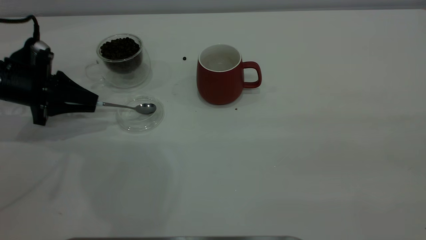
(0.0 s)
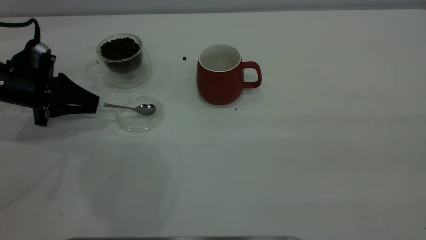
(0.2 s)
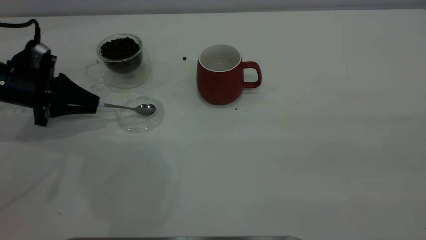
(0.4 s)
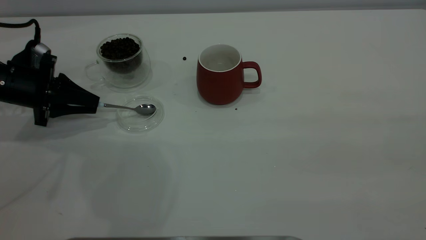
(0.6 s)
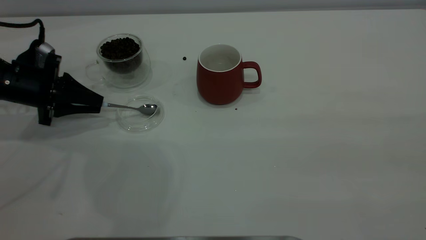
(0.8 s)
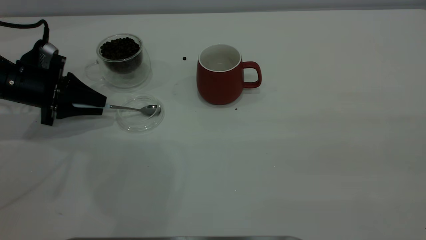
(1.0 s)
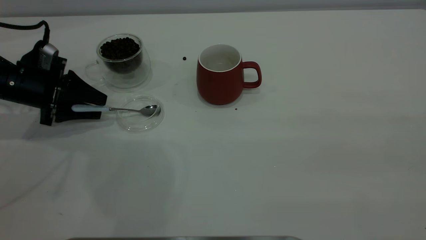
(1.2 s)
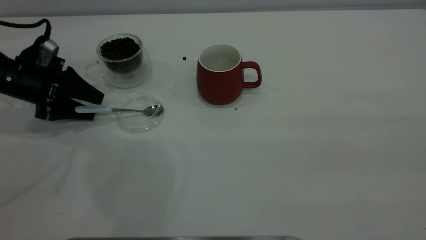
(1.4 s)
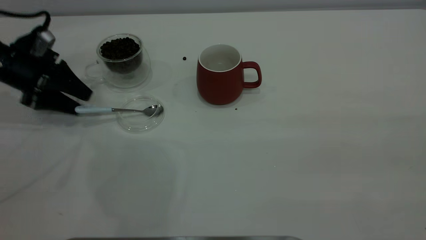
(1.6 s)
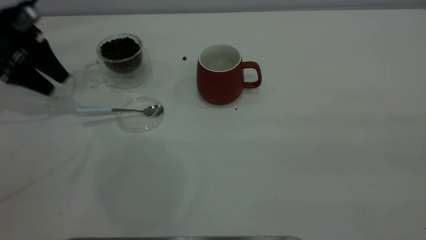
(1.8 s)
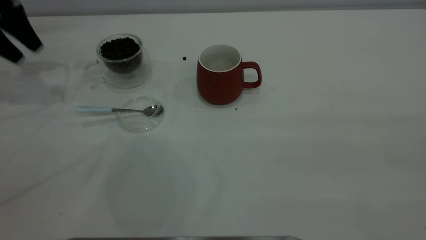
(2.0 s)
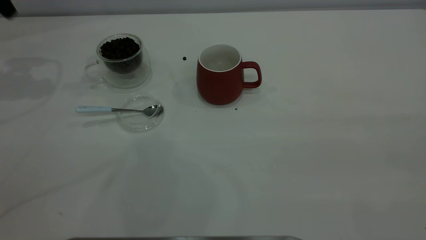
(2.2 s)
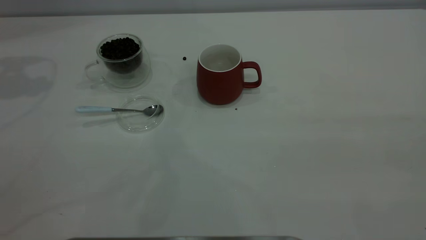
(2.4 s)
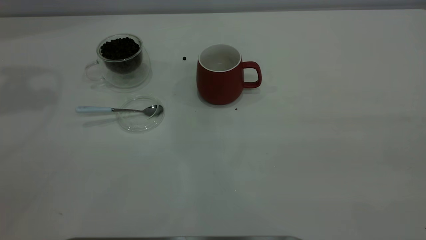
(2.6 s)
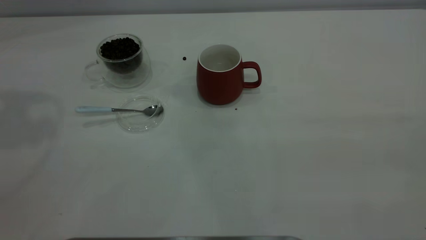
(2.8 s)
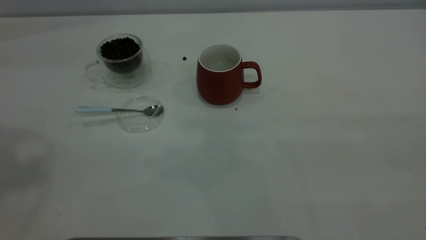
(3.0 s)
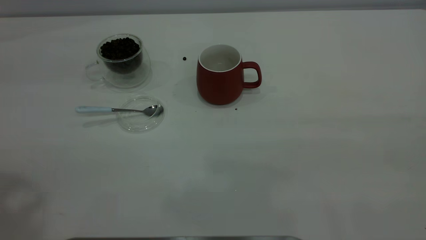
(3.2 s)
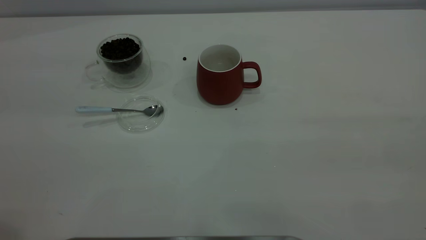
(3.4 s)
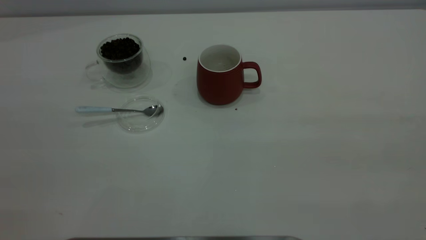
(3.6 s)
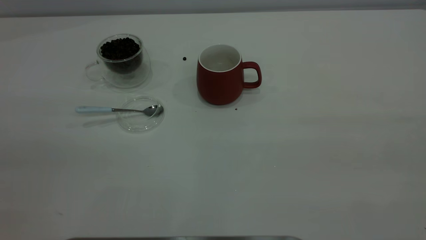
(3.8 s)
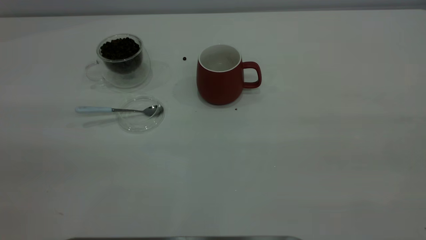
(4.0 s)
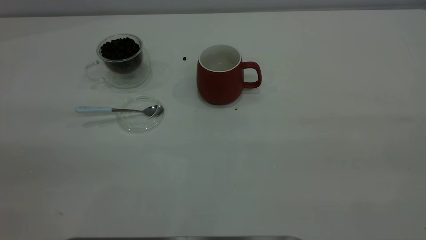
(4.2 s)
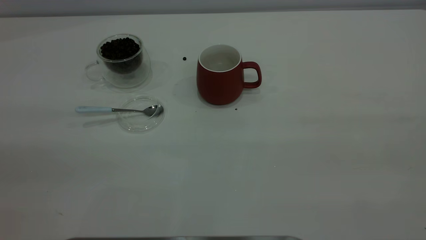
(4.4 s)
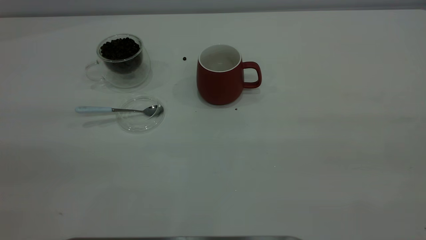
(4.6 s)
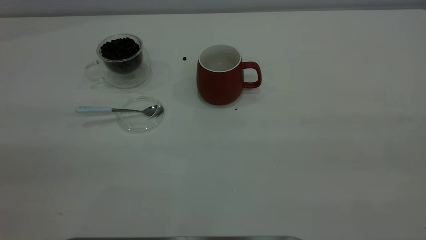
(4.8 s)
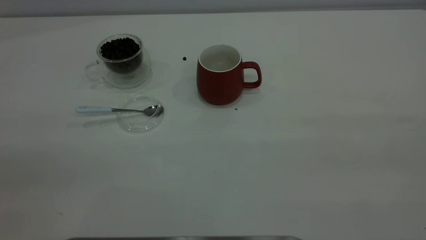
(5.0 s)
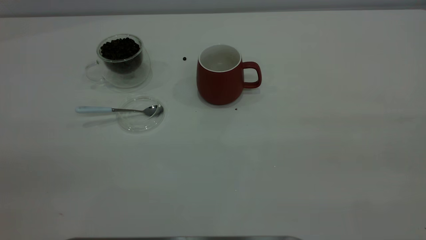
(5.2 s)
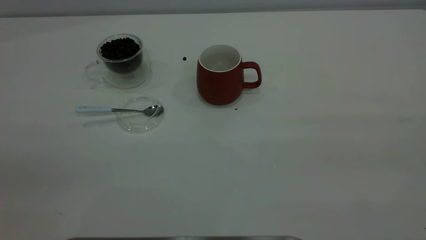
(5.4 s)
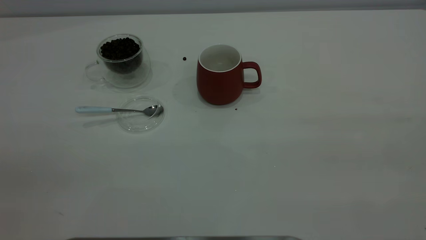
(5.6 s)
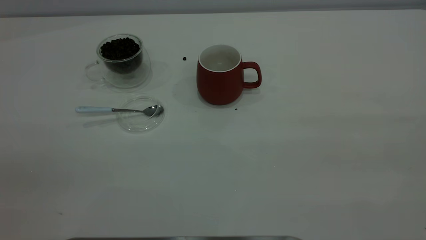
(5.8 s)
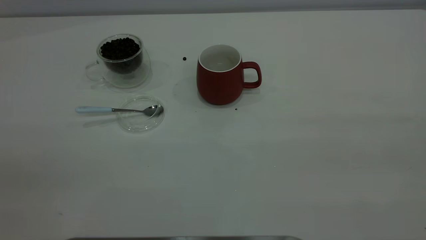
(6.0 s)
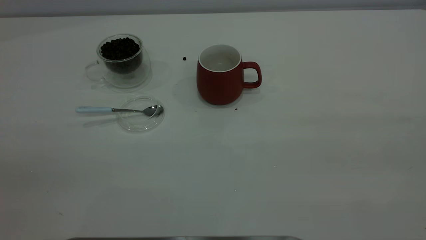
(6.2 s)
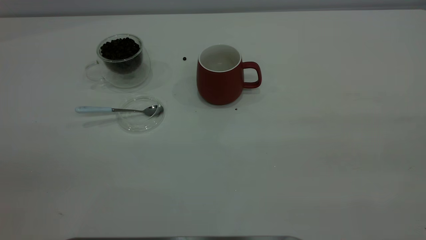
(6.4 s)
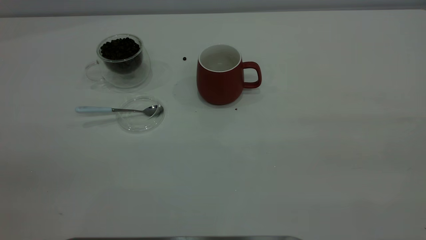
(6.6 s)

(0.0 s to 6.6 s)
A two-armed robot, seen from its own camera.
Task of the whole recording: the right gripper place the red cup in the center of the table, the left gripper take the blue spoon from the cup lid and scoop out the coffee beans from the coffee cup and put them into the red cup, the left gripper put the spoon back into the cup lid.
Step, 0.0 s - 1.6 s: Place the spoon back in its original place.
0.0 s - 1.6 s: The left gripper moves roughly 5 cm, and opens its fingers.
1.6 s - 3.2 s: The left gripper heads upward and backward, covering roughly 40 cm.

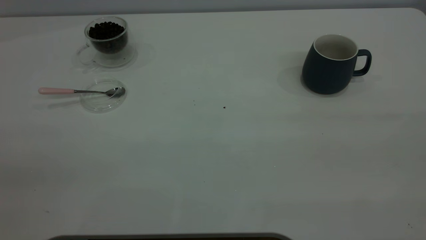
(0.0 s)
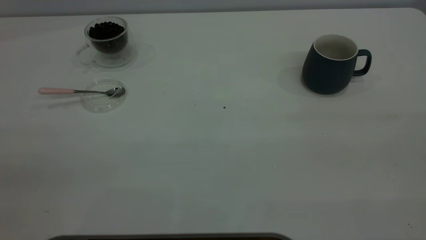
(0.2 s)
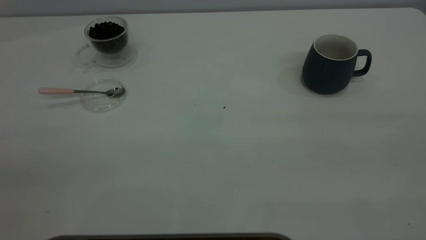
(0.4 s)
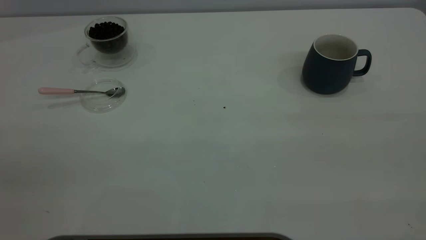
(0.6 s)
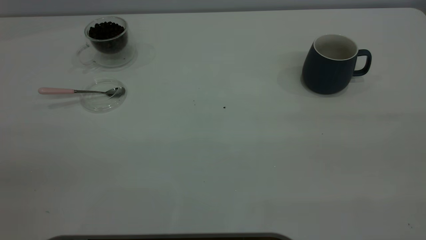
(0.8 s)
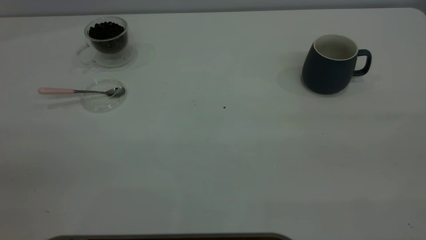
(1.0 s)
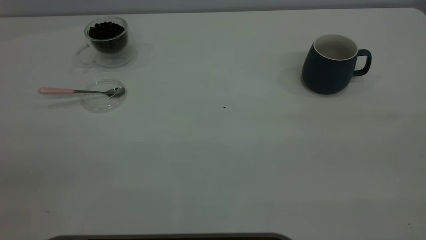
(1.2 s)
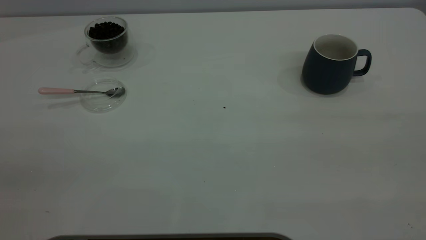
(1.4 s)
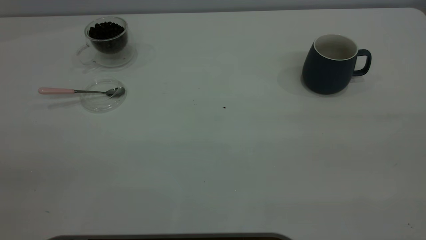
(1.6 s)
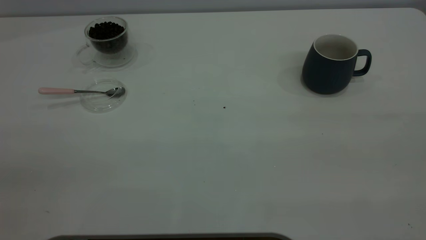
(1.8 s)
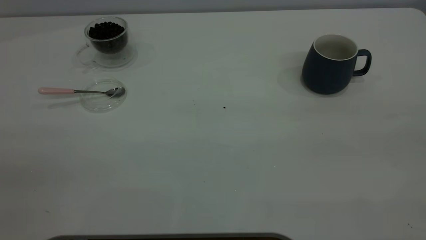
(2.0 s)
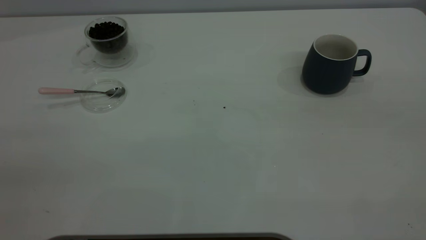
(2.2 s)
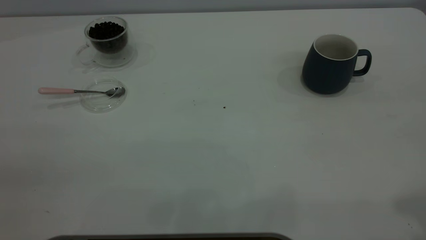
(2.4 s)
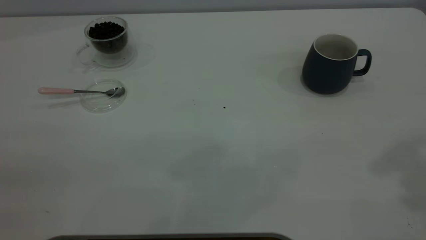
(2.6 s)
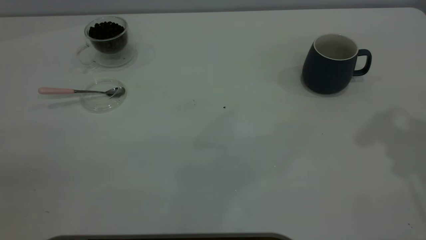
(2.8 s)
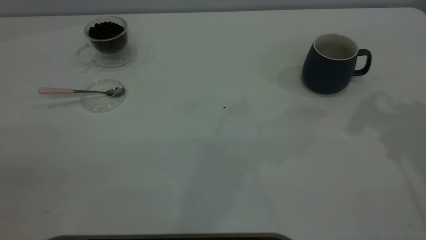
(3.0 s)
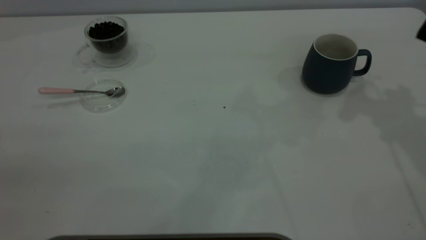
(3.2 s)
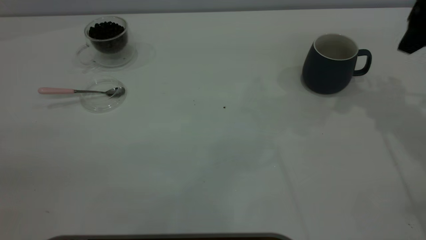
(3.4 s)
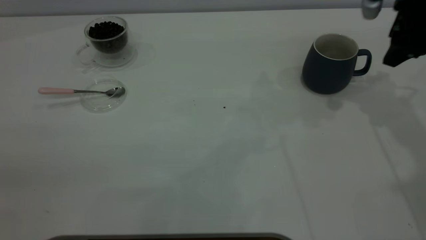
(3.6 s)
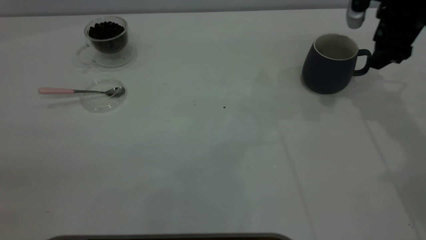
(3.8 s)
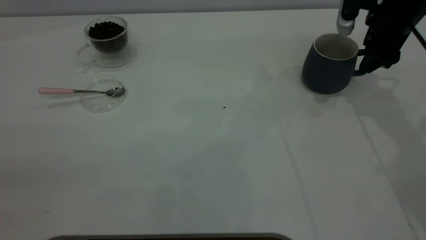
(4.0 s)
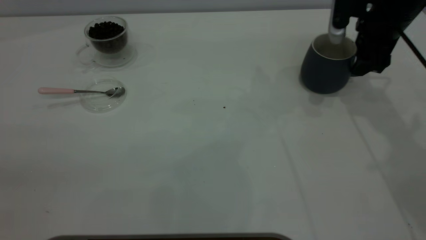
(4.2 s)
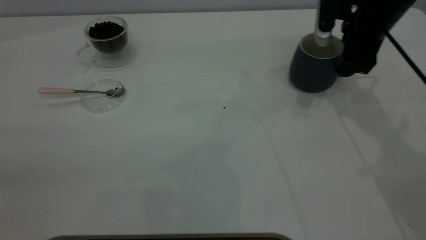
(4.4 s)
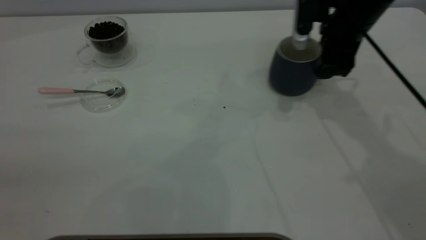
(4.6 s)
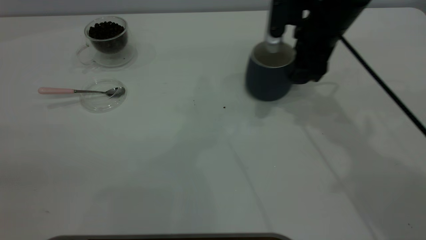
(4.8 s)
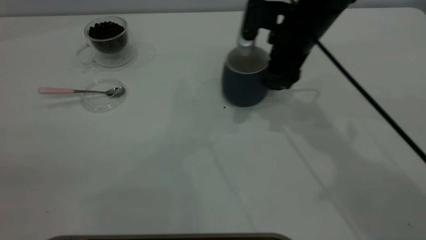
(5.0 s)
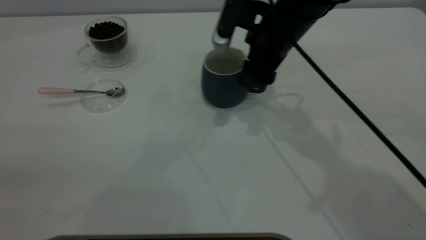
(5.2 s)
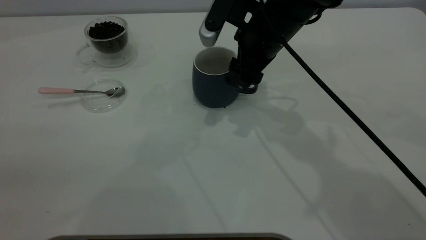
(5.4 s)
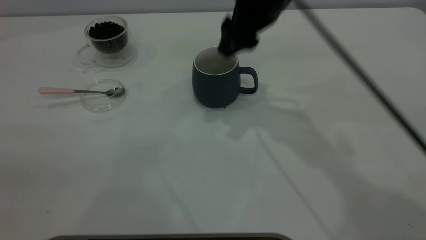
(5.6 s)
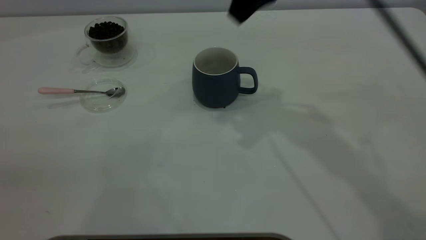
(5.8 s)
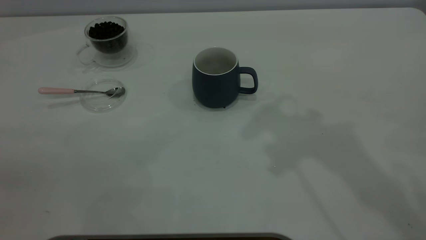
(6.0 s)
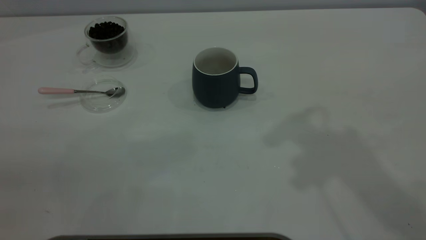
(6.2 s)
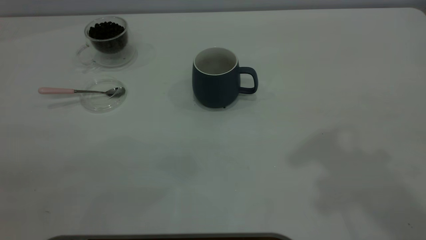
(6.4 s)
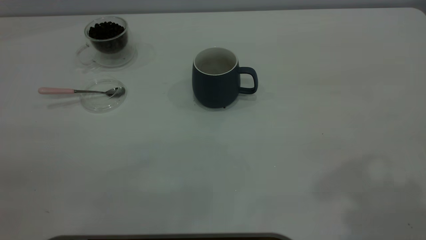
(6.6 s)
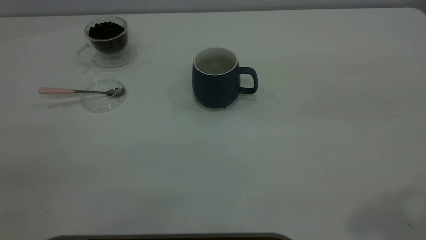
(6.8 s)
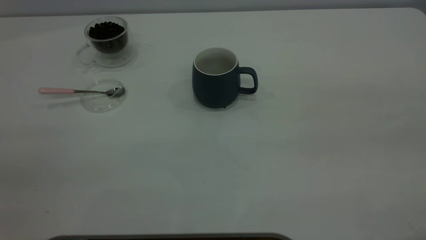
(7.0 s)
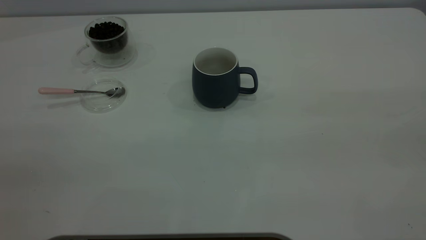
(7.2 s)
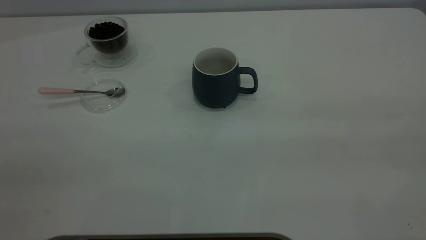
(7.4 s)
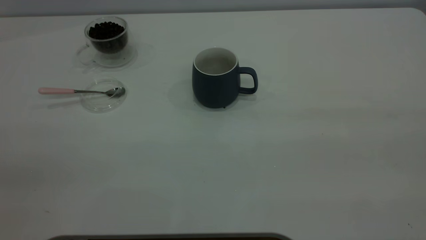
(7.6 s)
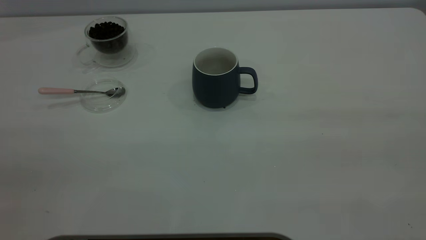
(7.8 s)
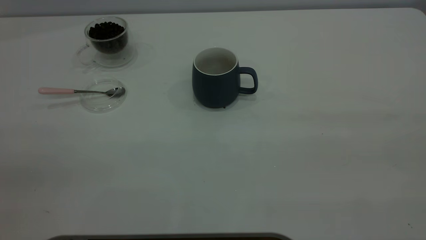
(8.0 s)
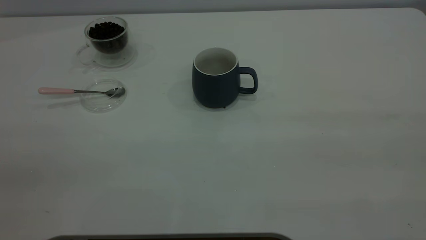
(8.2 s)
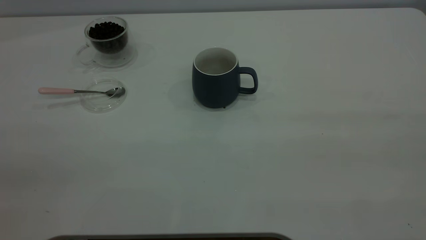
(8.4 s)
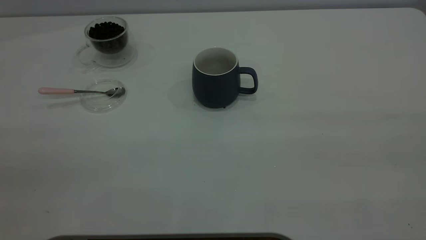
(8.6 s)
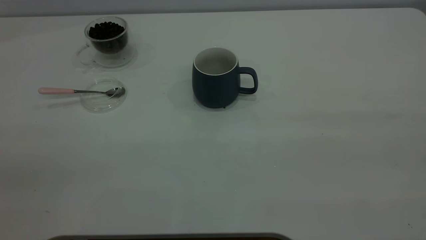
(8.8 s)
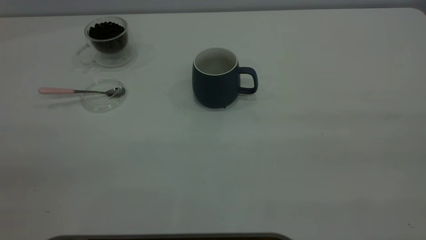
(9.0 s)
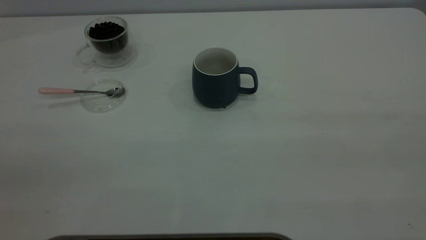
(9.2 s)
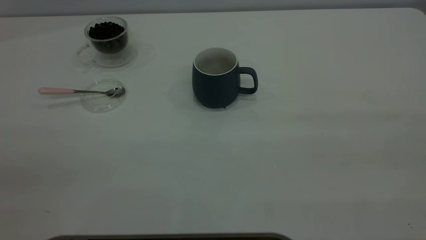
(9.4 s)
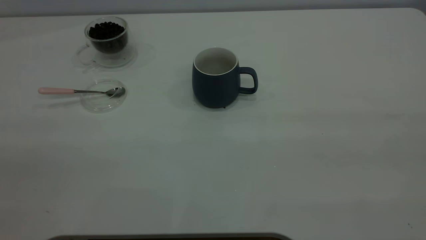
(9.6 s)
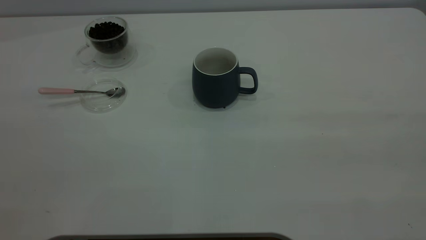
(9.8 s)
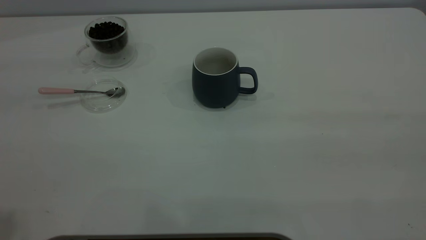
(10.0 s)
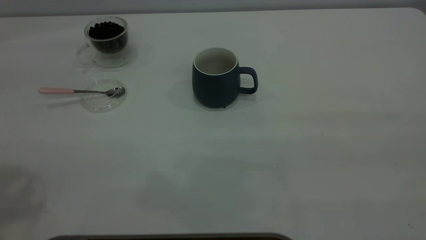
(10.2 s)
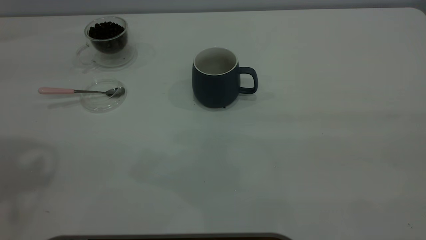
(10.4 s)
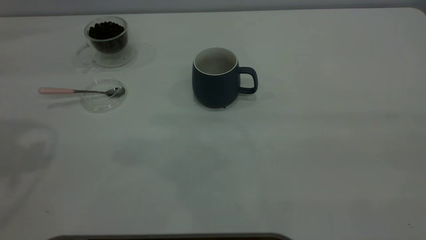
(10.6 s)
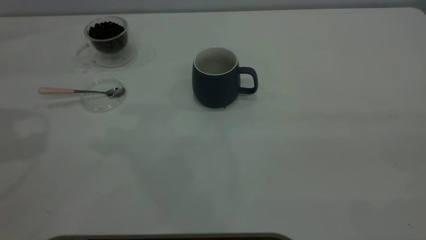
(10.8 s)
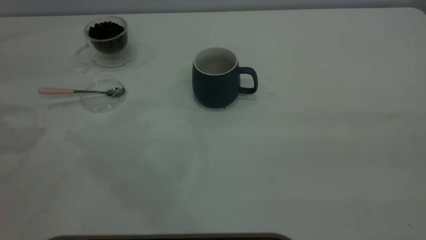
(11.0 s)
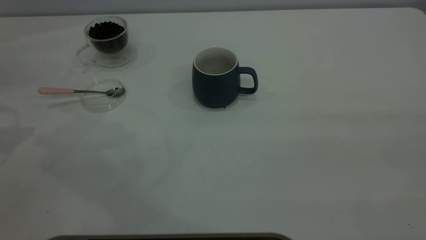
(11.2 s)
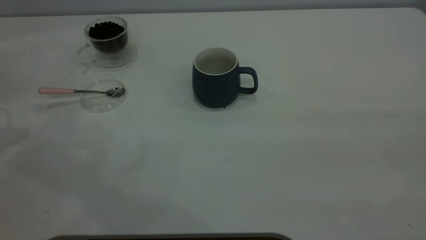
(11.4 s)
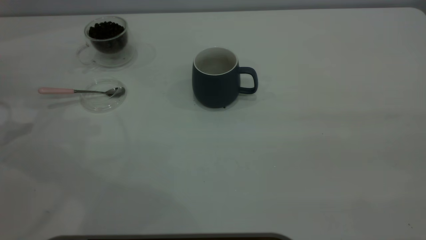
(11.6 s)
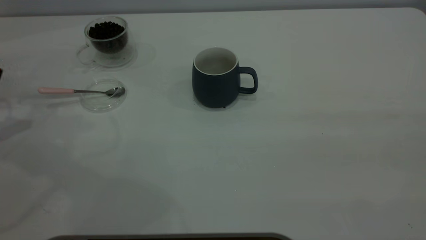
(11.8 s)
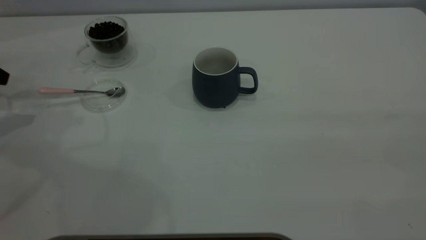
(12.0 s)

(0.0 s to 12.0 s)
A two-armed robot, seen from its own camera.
Task of the whole recording: the right gripper place the grey cup in the center of the table, the left gripper take the pink spoon from the cup lid and scoop out the coffee beans from the coffee cup and put them into the grey cup, the left gripper put the spoon back into the cup lid.
Step, 0.0 s - 5.6 s: Move the cup to the center of view.
0.0 s - 1.6 s: Both grippers stay about where they are.
3.0 s - 4.4 s: The right gripper shifts roughly 20 cm downward, forward and to the left.
4.4 s - 6.0 s: The right gripper is displaced upward and backward by some 25 cm.
